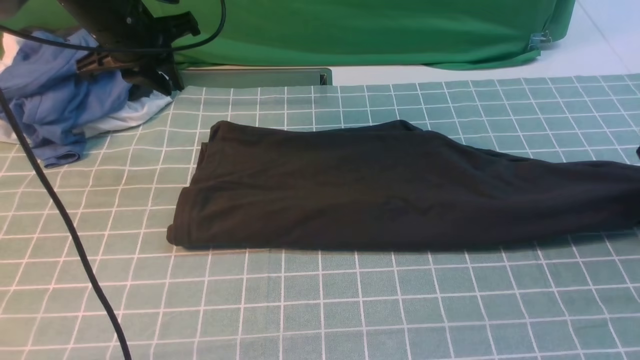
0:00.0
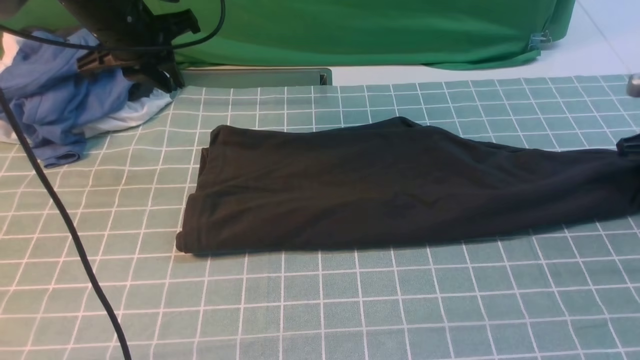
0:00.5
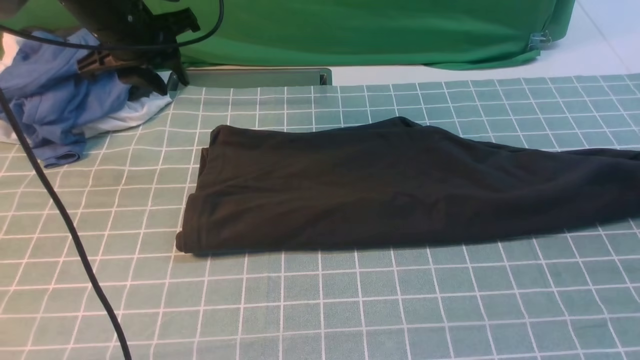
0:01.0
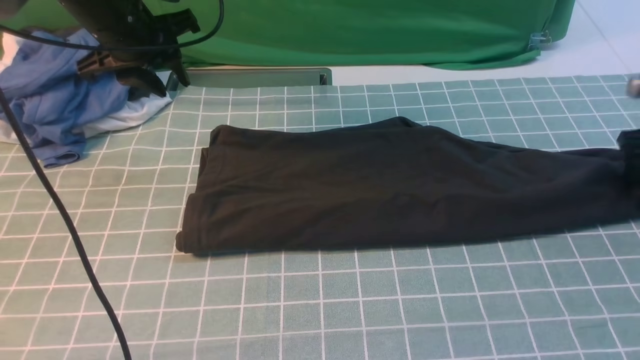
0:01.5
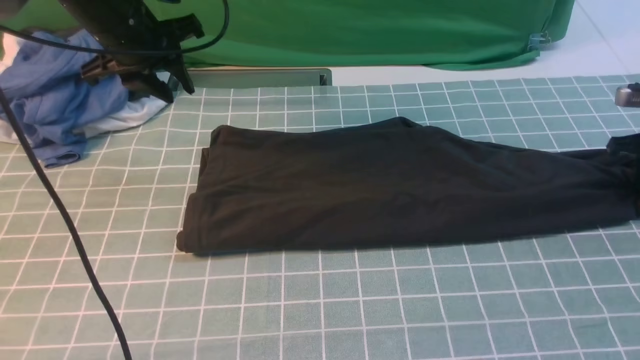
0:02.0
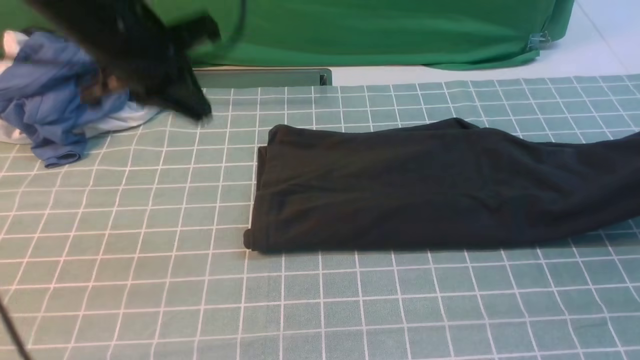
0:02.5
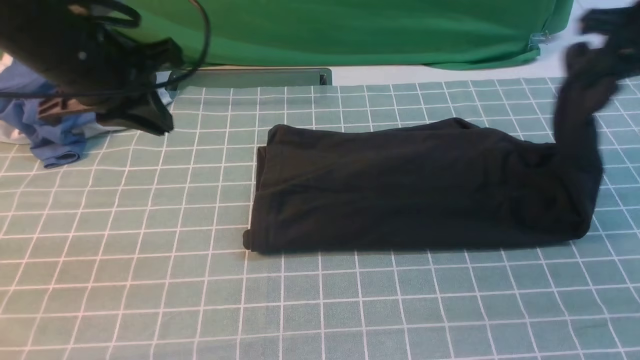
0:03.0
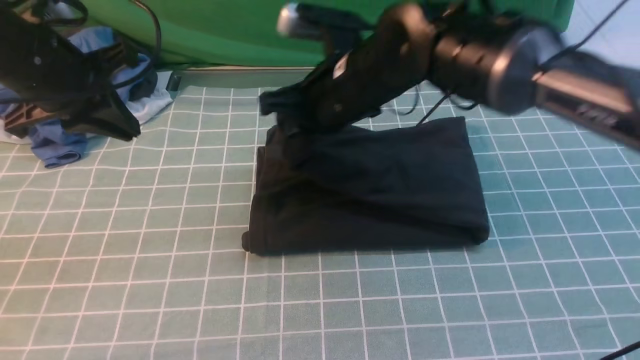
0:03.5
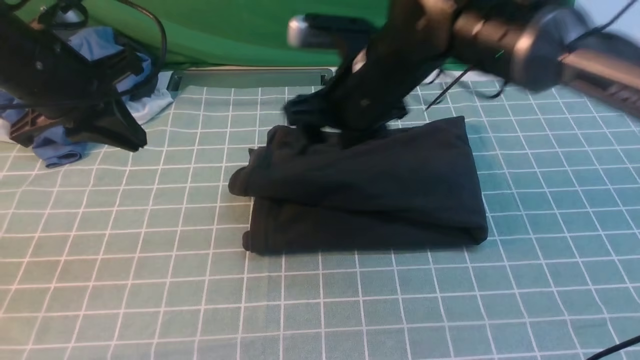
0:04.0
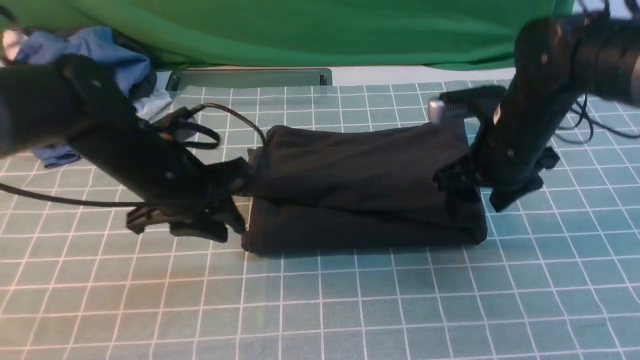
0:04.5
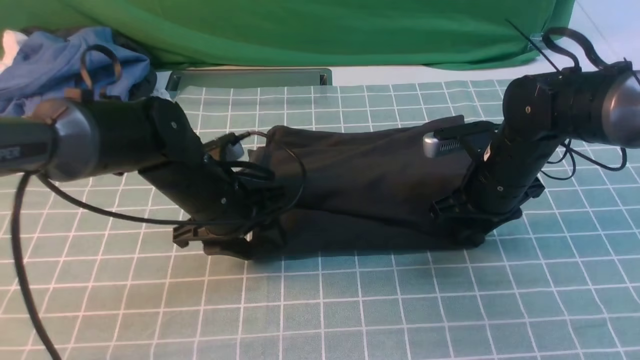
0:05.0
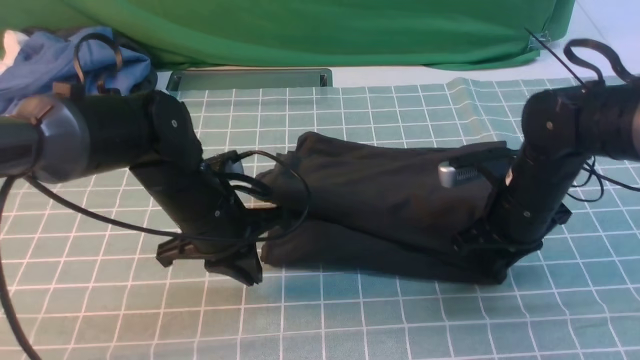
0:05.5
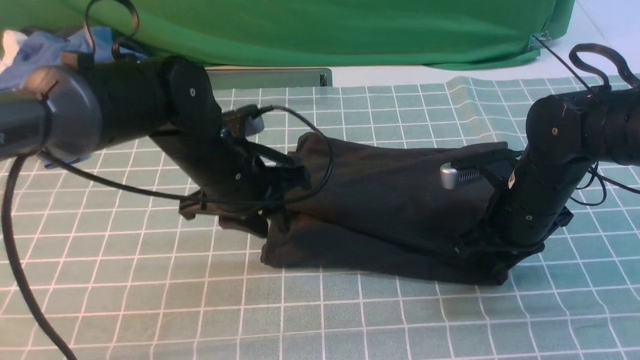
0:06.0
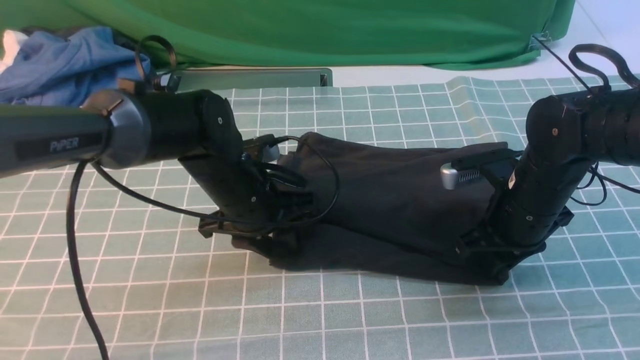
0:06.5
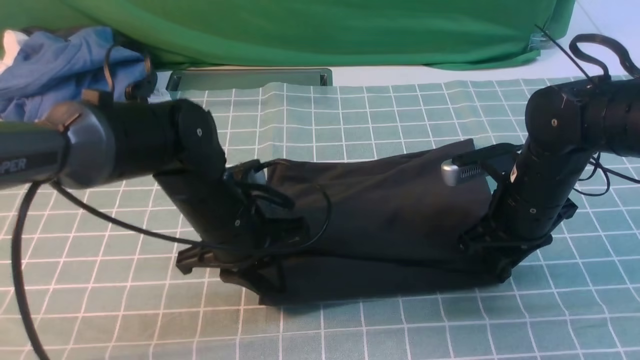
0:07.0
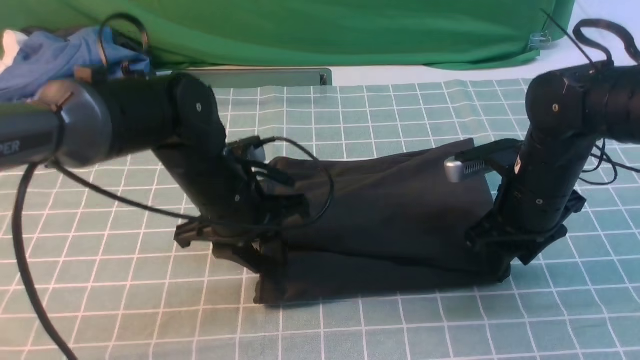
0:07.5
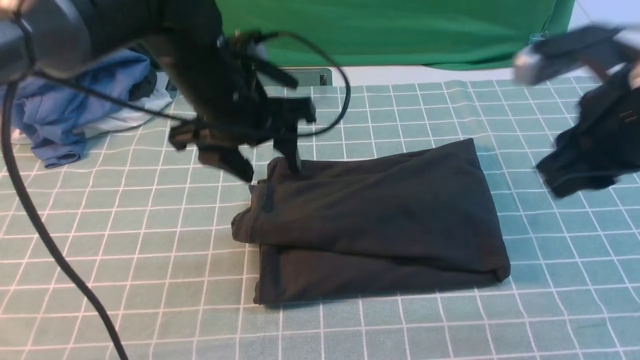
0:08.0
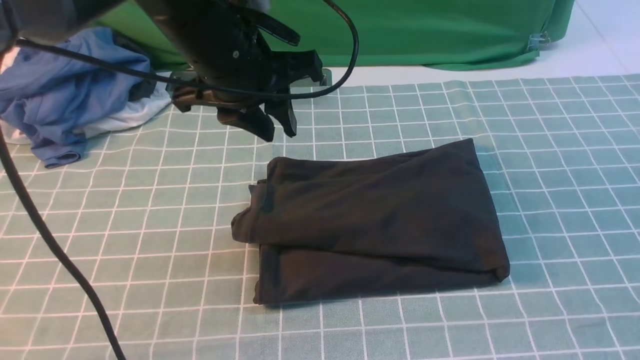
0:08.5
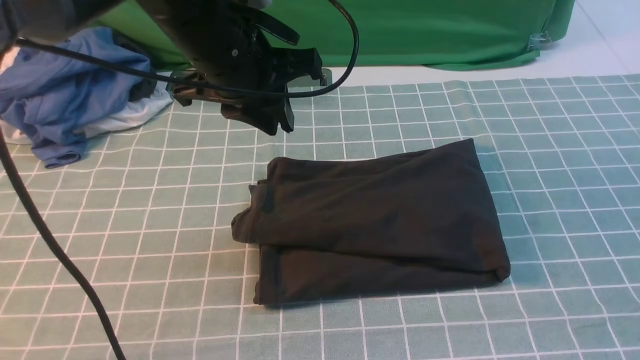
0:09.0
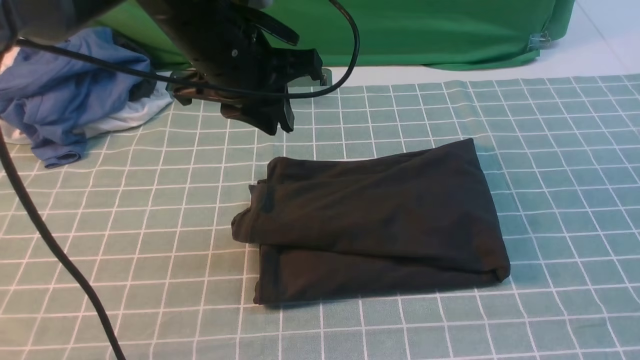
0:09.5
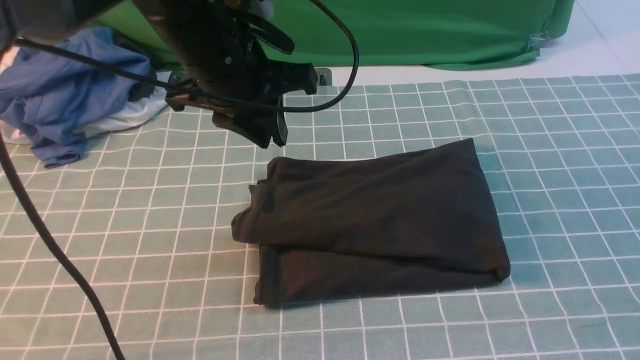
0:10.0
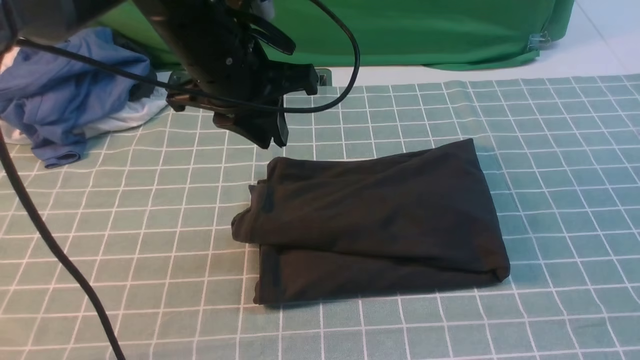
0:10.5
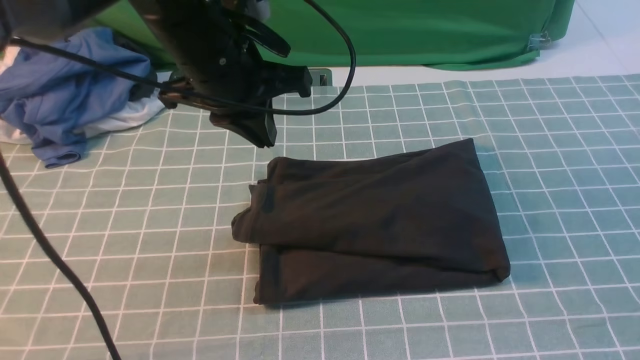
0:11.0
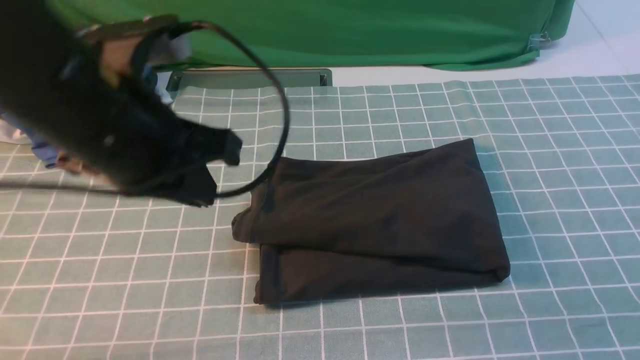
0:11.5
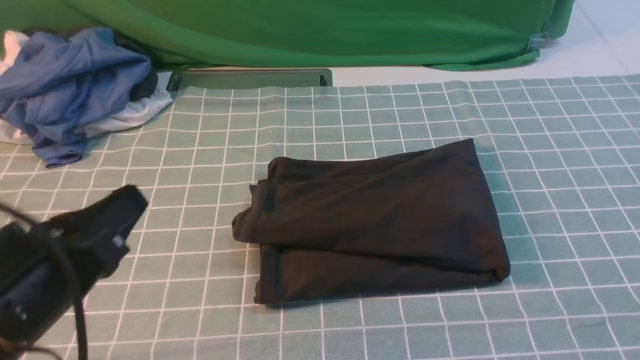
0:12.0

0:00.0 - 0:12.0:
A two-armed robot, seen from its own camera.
Step, 0:02.5 - 0:04.0: use the right arm to drag the right edge of the fabric to the left and folds it over the left edge.
0:00.0 - 0:02.0: The right gripper shifts by approximately 5 cm, and opens and closes again.
0:02.0 - 0:04.0: The right gripper shifts roughly 40 cm to the left, and opens. The left gripper goes about 10 cm backward, and closes.
0:04.0 - 0:06.0: The left gripper goes about 20 cm to the right and downward, and opens; the right gripper is displaced to the right, downward and backward by approximately 20 cm, and closes up.
0:06.0 - 0:08.0: The left gripper moves upward, some 10 cm, and opens its fingers; the right gripper travels upward by roughly 20 cm, and opens, then closes once more.
0:08.0 - 0:10.0: The left gripper closes its fingers; the right gripper shifts approximately 15 cm backward.
0:10.0 - 0:12.0: The left gripper goes roughly 25 cm backward and to the left, while the right gripper moves downward, approximately 10 cm.

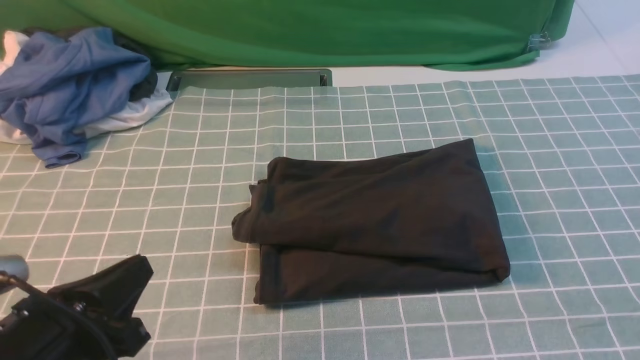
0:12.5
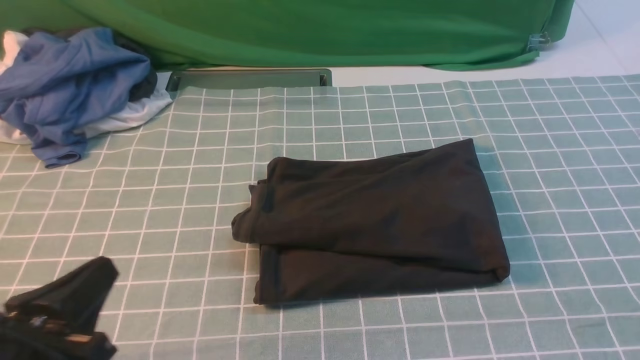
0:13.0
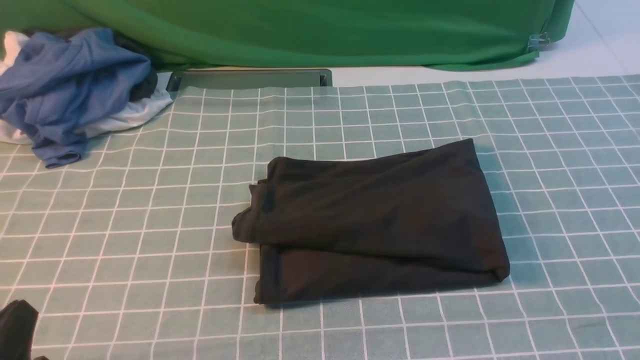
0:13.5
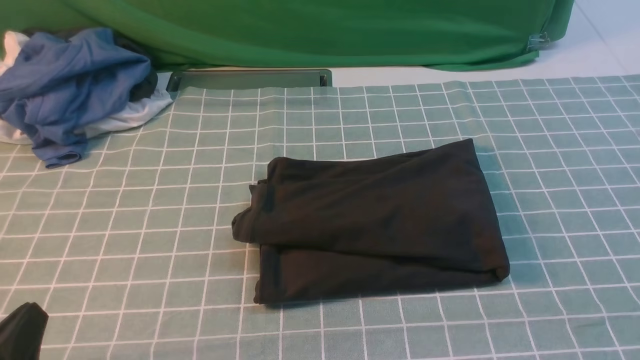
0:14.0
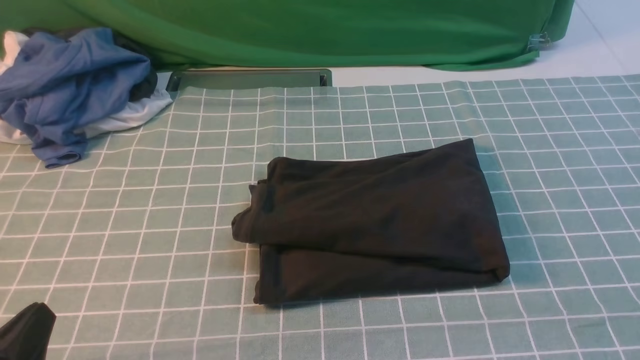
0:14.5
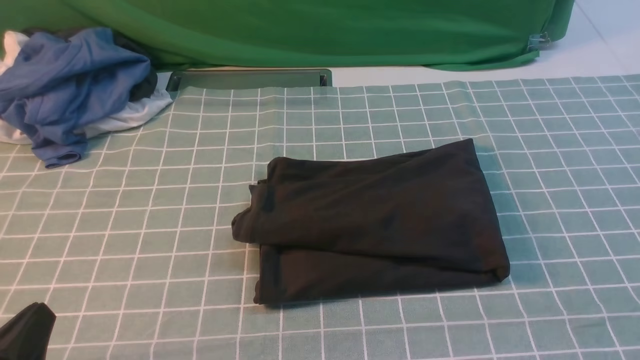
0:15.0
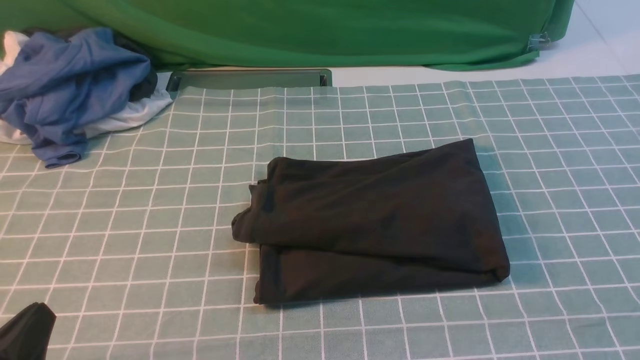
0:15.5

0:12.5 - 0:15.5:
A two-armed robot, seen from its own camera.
0:12.5 - 0:14.0: The left gripper is displaced backward by about 5 cm.
0:14.0 - 0:15.5: Both grippers stay about where they are.
